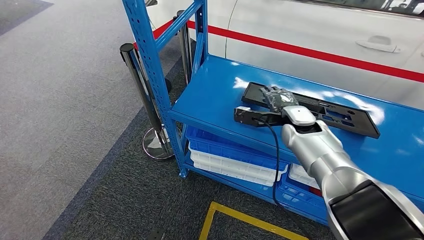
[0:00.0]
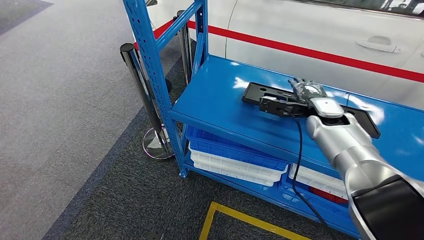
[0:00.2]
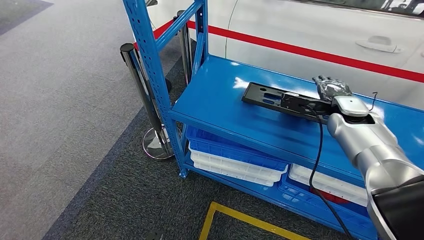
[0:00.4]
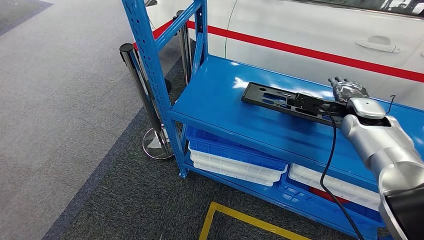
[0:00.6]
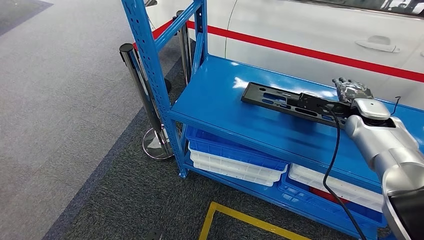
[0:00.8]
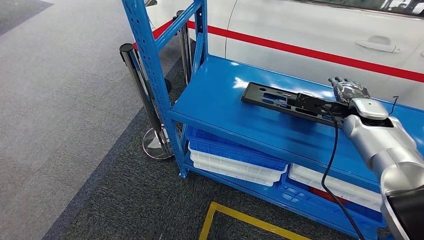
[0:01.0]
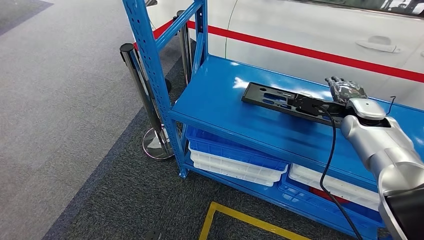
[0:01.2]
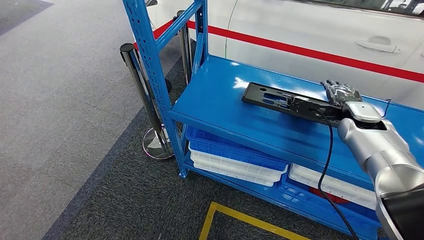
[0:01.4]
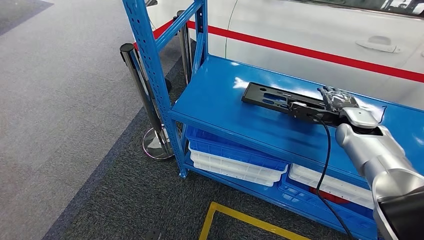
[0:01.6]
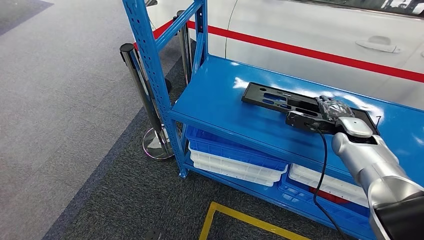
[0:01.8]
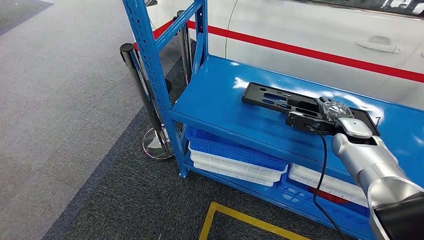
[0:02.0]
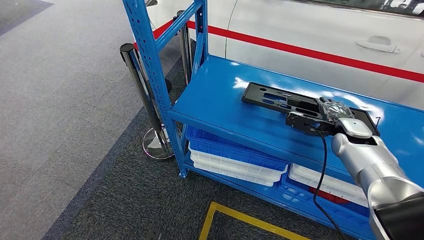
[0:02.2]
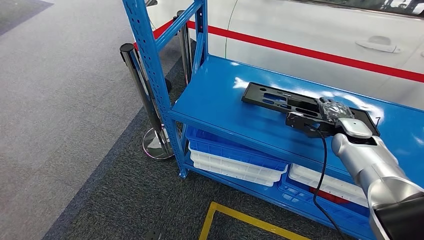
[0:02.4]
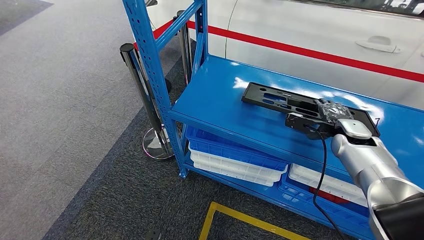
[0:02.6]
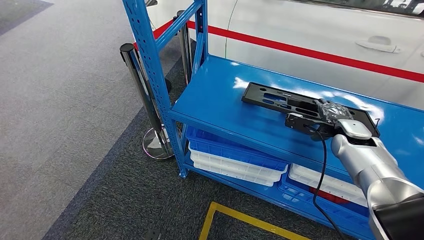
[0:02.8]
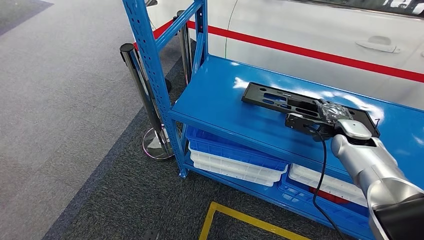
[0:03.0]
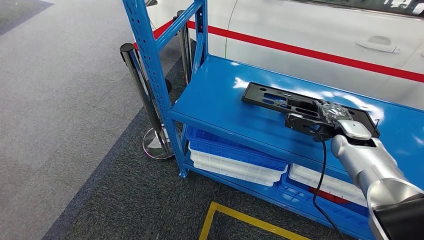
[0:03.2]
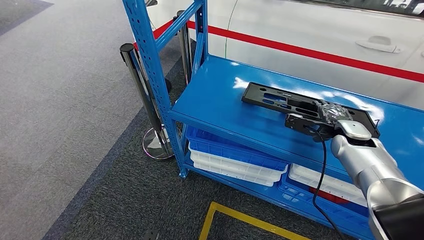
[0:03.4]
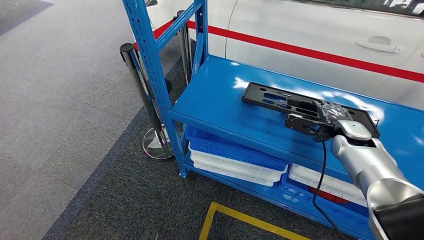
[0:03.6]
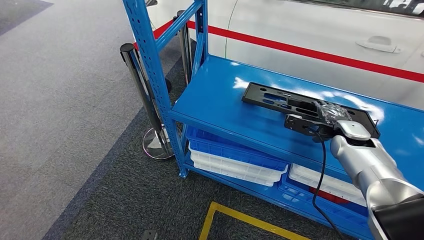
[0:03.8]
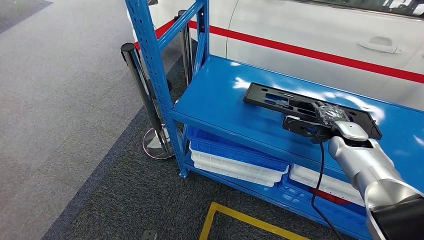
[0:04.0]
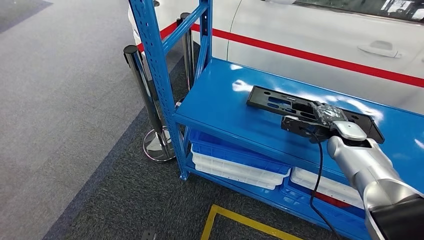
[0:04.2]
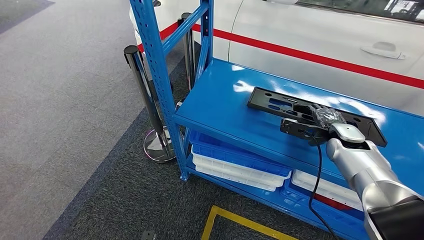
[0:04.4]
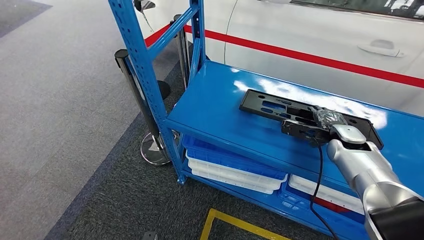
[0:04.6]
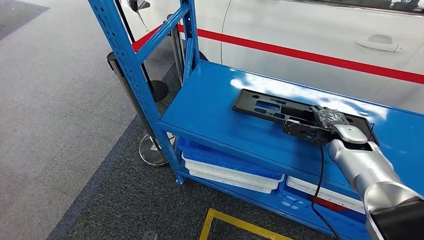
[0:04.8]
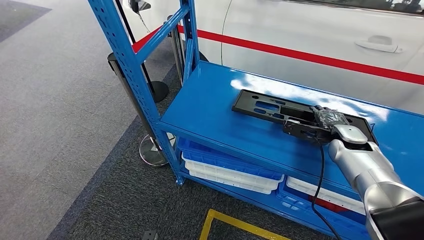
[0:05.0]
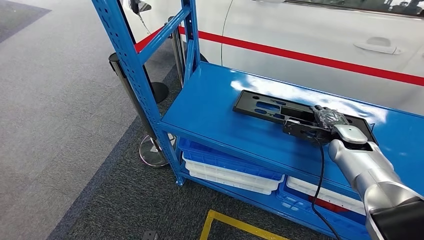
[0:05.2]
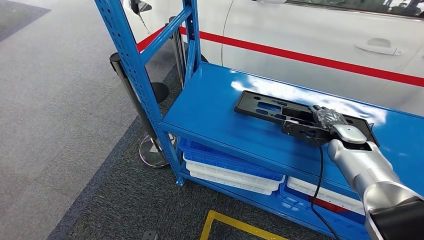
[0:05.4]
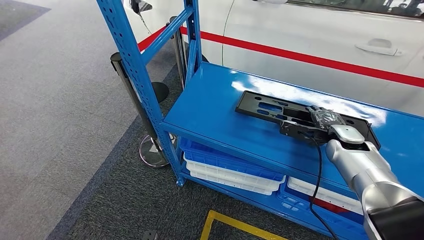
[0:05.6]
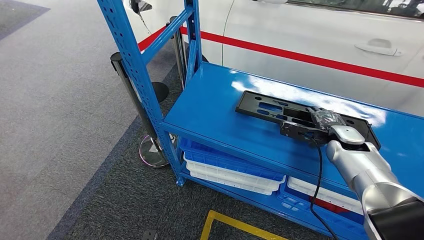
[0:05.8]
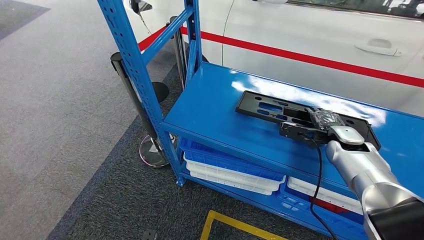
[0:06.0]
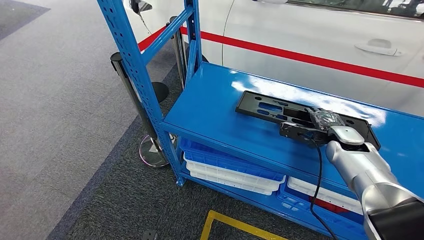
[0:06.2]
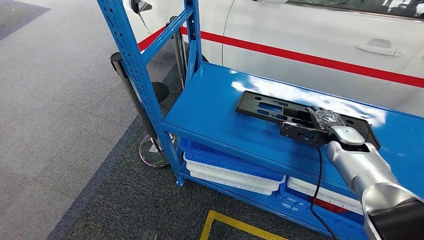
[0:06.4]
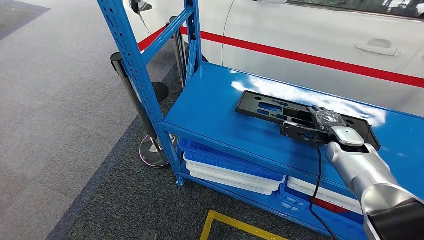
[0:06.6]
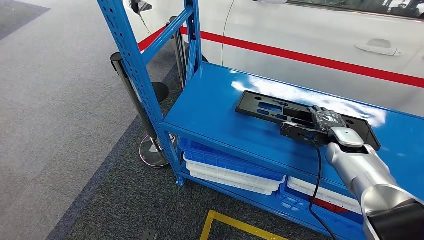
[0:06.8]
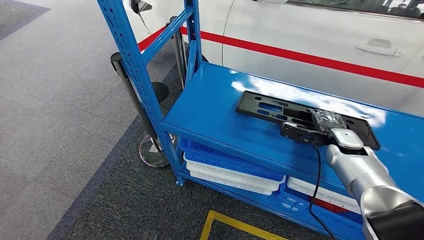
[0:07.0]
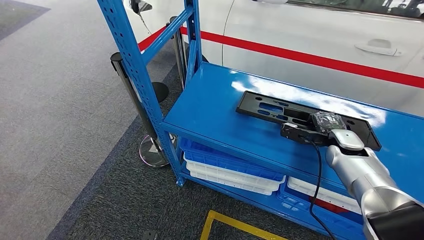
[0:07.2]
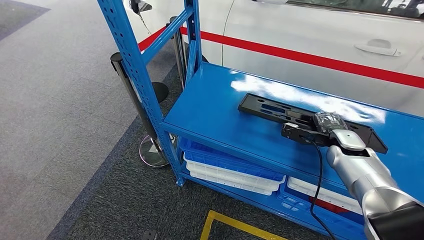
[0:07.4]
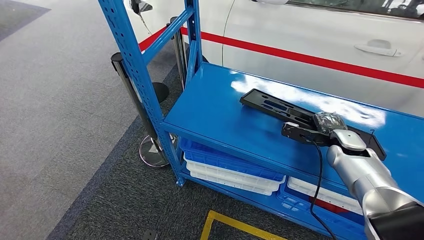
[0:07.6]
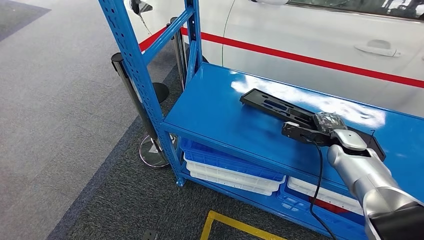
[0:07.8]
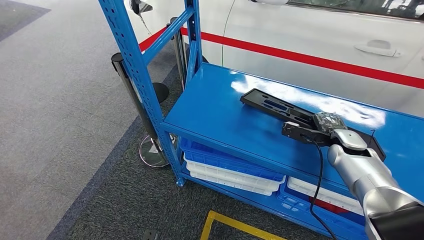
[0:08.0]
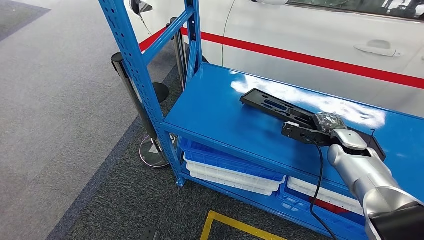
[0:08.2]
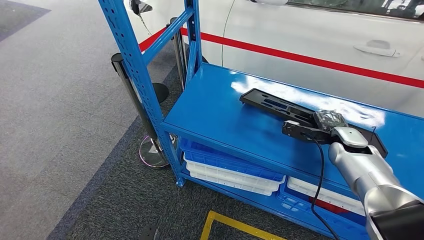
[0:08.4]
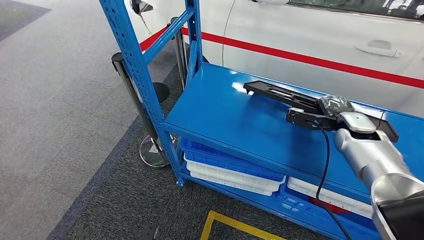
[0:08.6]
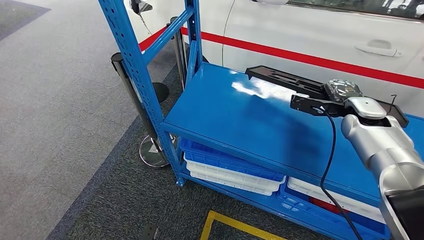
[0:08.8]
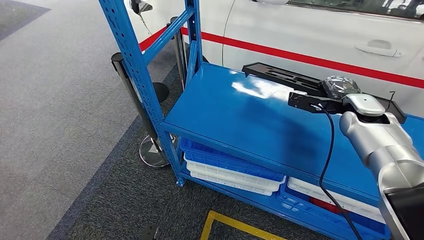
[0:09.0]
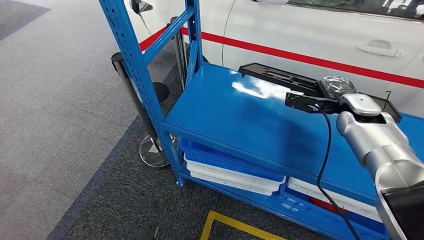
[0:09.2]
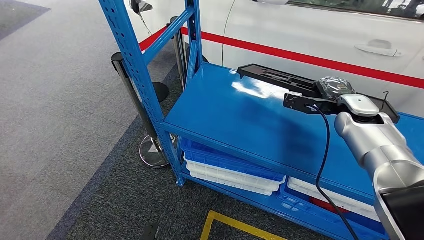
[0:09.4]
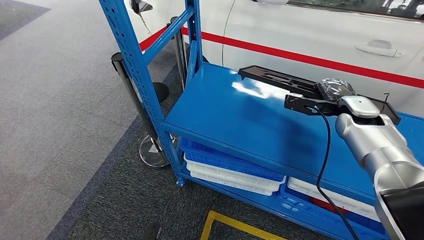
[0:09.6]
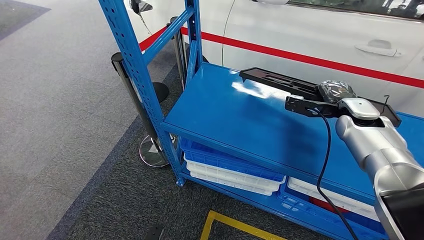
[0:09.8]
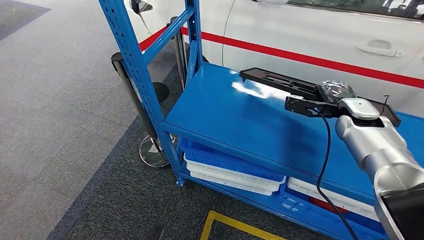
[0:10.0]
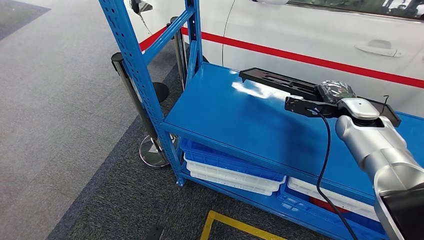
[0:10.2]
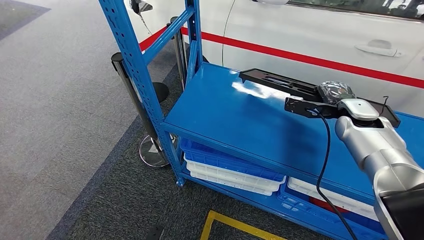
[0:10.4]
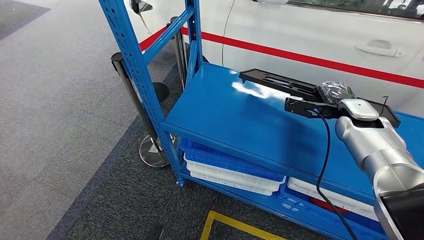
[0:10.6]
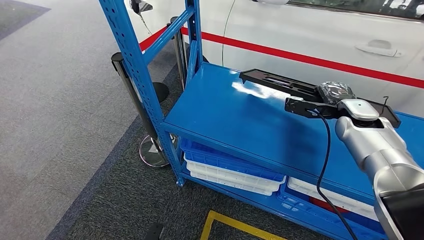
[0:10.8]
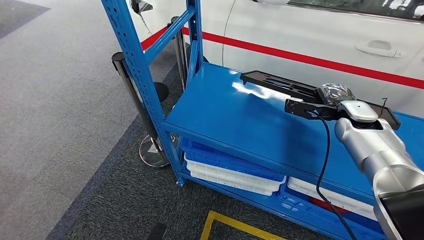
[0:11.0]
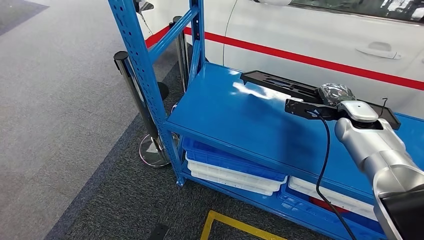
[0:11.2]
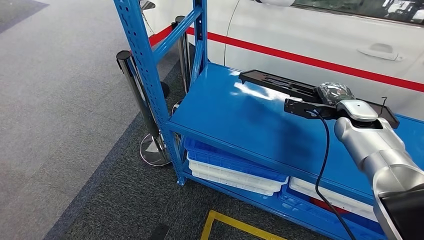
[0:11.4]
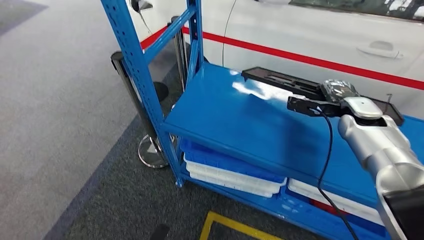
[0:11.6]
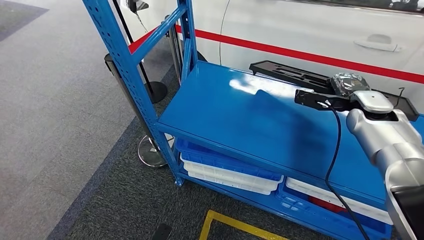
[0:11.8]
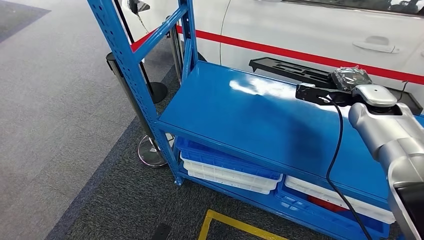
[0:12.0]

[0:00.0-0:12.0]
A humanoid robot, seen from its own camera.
0:00.0 to 0:01.6: The right hand goes some 15 cm to the right.
0:01.6 to 0:03.0: The hands stay close to where they were, moving slightly.
0:06.0 to 0:07.6: The hands move only a little.
0:07.6 to 0:09.0: The right hand travels upward by about 10 cm.
0:09.0 to 0:10.4: The hands stay close to where they were, moving slightly.

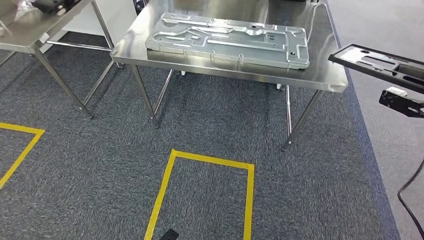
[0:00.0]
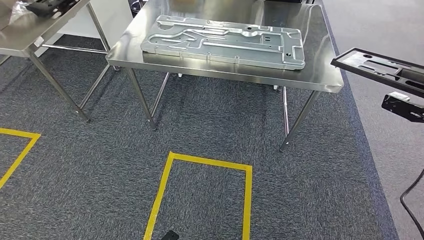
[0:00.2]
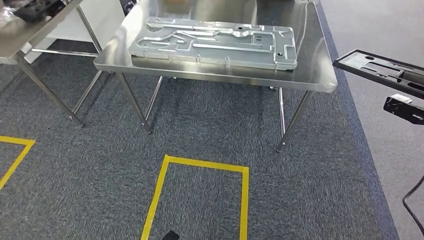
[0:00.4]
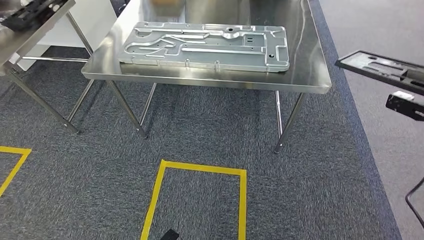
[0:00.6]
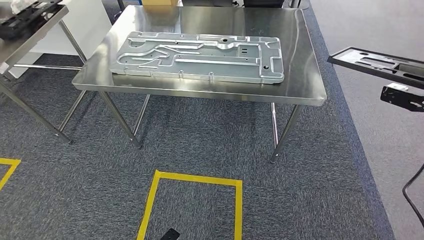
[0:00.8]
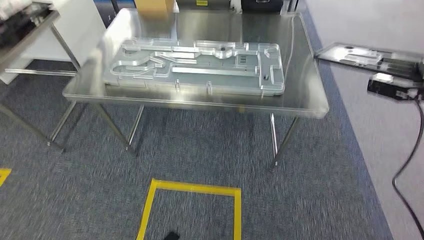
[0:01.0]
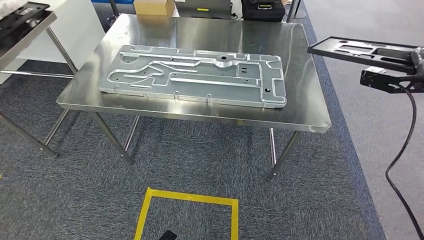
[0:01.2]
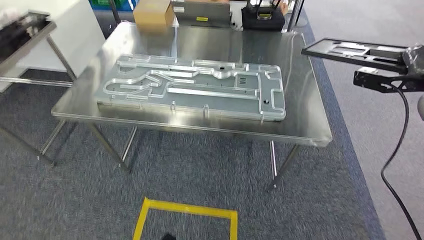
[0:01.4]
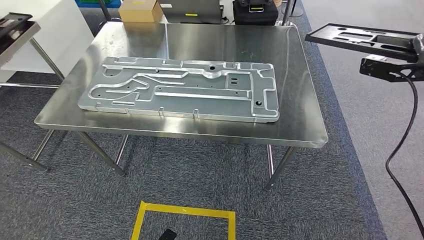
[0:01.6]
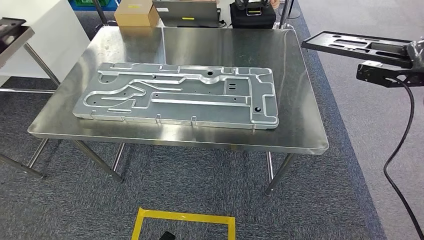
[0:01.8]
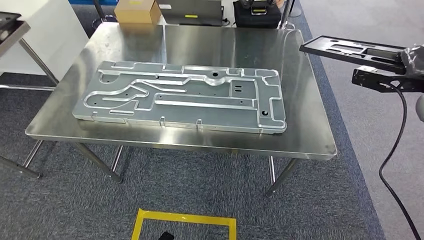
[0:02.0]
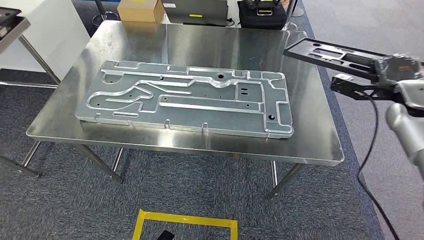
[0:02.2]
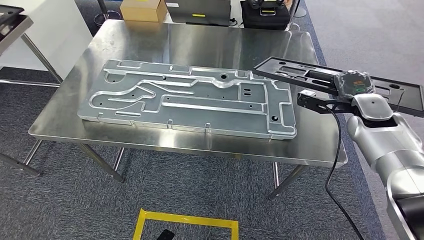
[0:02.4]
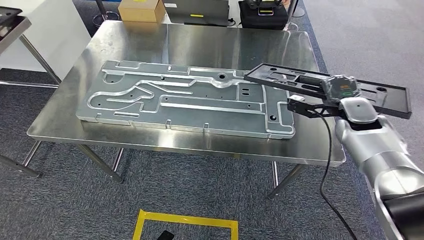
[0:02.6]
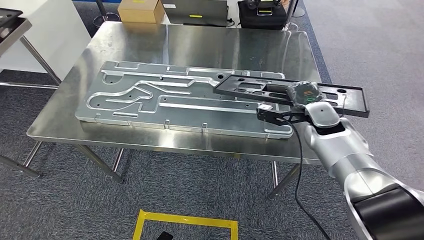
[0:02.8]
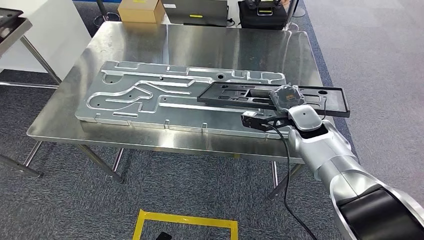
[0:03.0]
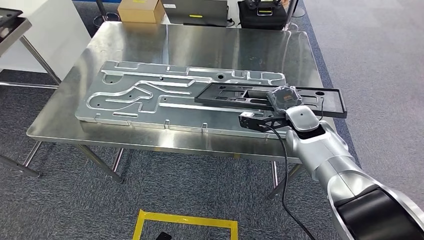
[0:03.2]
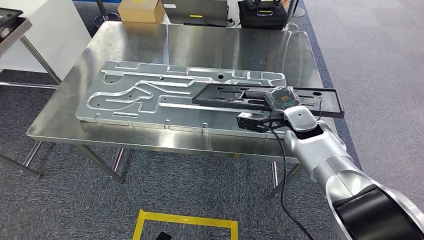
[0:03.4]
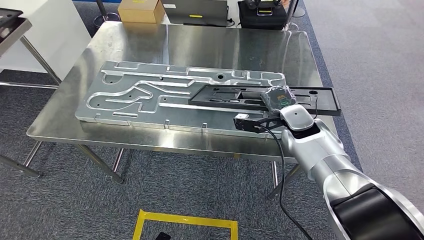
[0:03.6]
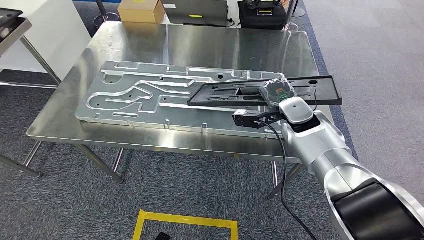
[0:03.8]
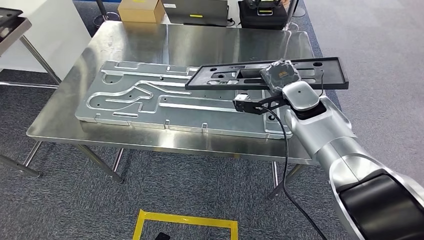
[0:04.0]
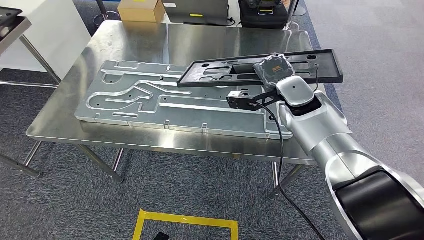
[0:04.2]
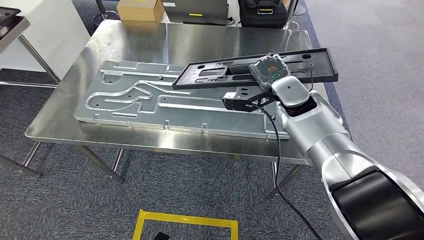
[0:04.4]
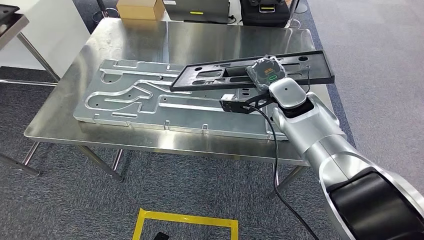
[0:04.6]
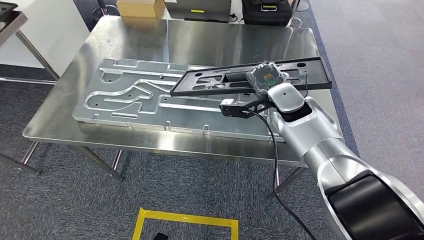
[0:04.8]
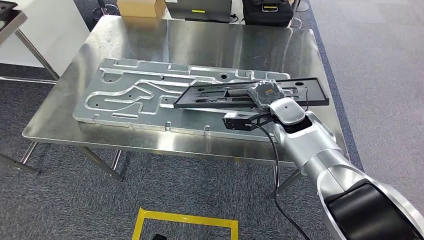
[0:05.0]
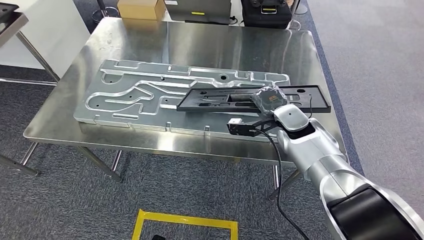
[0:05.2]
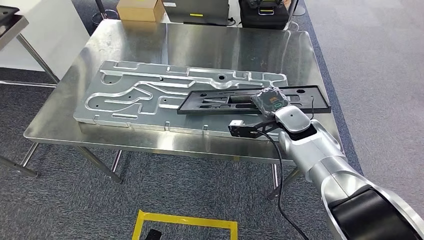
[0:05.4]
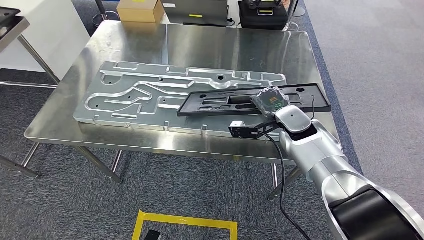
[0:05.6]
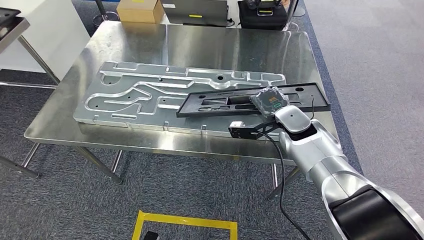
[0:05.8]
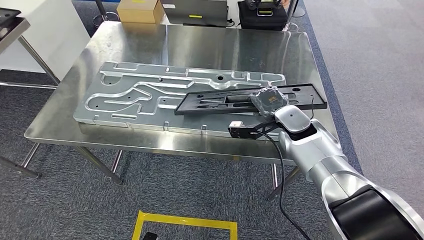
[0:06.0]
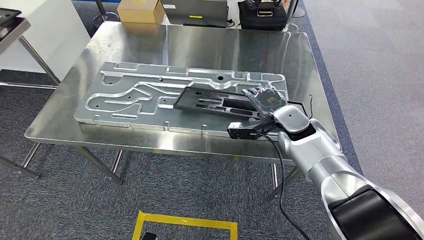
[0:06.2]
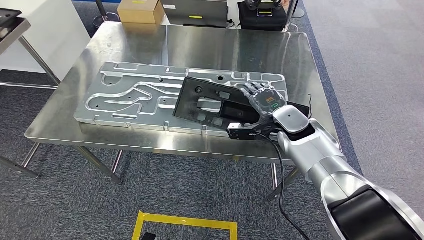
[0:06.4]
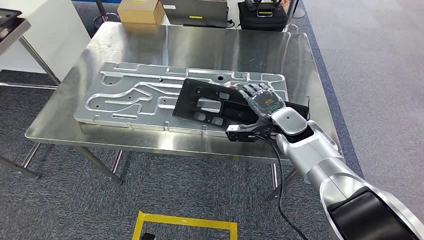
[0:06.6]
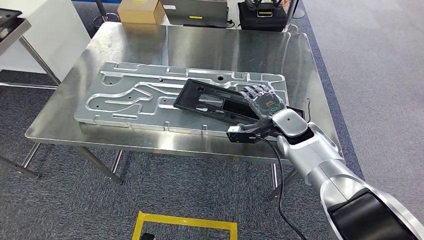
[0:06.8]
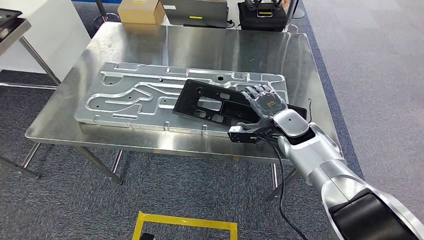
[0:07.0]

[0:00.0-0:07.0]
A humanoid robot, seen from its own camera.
Step, 0:00.0 to 0:02.8: Move the large material to the workbench.
0:02.8 to 0:04.2: The right hand travels to the left and upward by about 10 cm.
0:05.6 to 0:07.0: There are only small adjustments of the hands.
